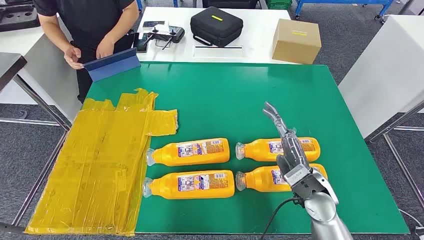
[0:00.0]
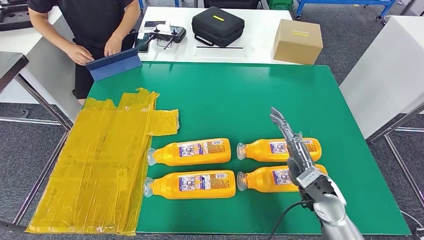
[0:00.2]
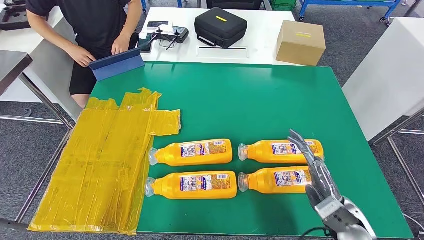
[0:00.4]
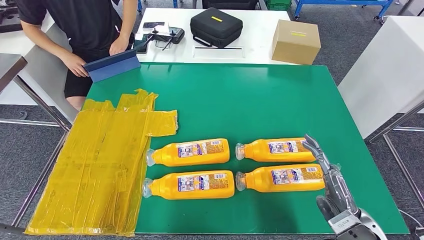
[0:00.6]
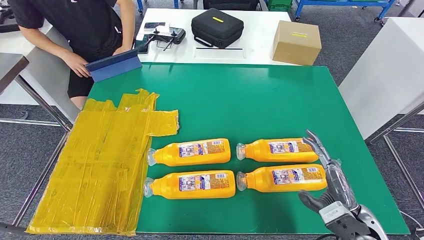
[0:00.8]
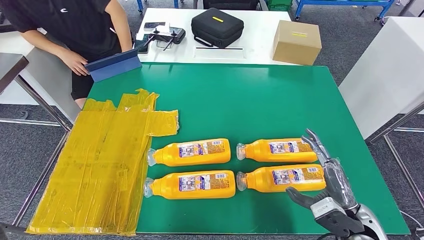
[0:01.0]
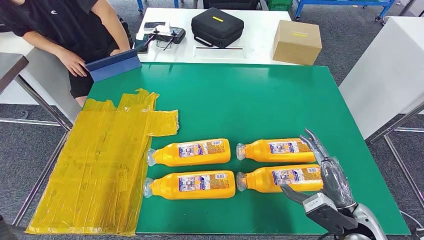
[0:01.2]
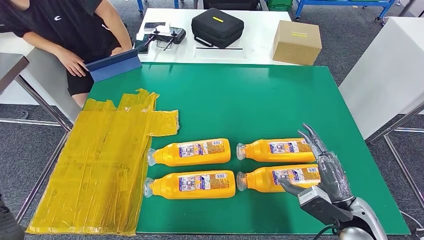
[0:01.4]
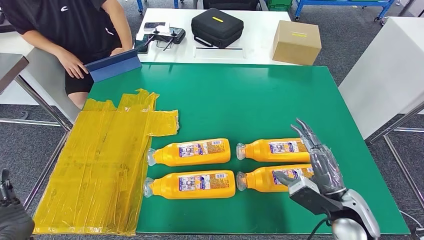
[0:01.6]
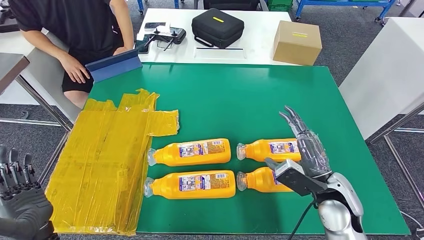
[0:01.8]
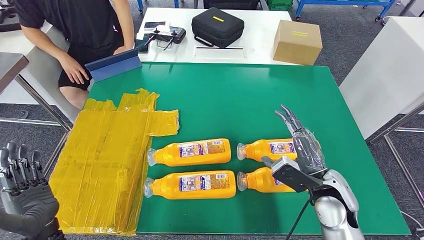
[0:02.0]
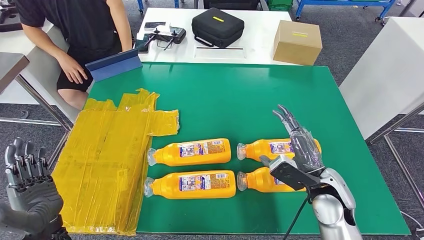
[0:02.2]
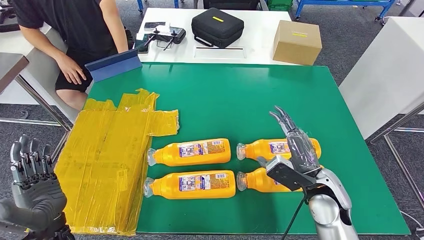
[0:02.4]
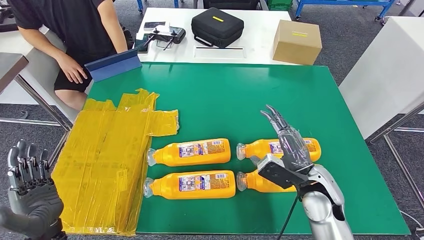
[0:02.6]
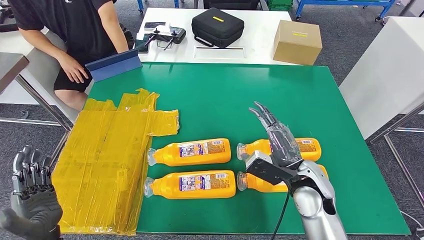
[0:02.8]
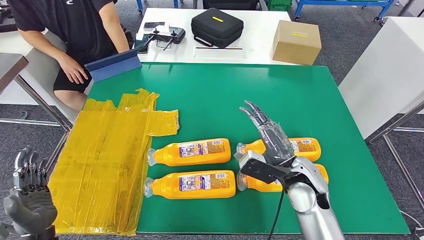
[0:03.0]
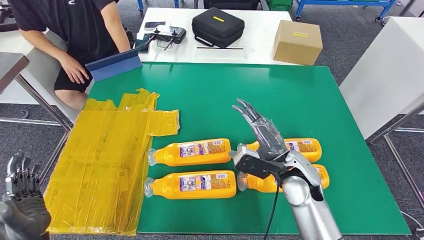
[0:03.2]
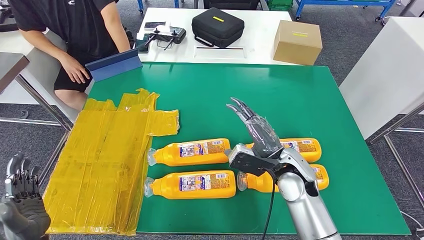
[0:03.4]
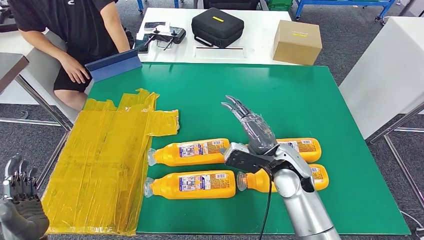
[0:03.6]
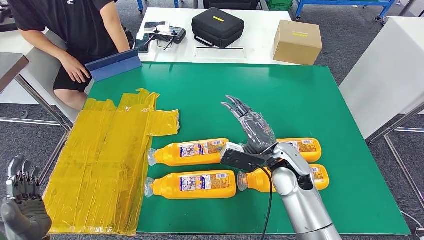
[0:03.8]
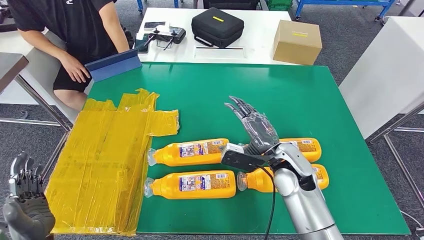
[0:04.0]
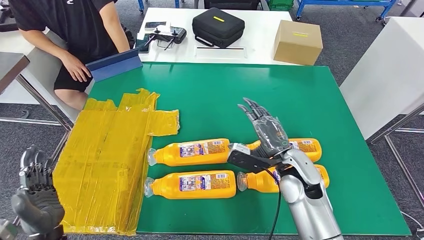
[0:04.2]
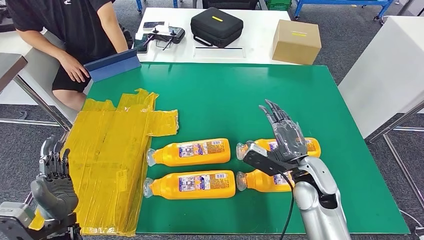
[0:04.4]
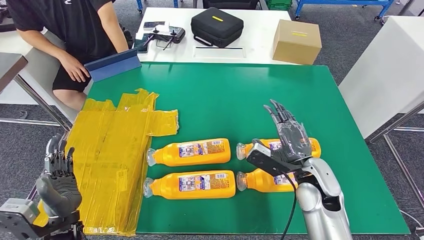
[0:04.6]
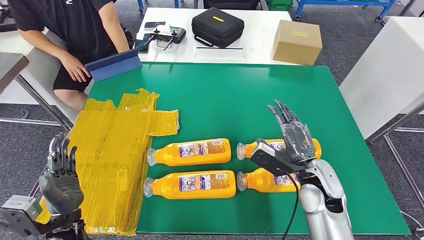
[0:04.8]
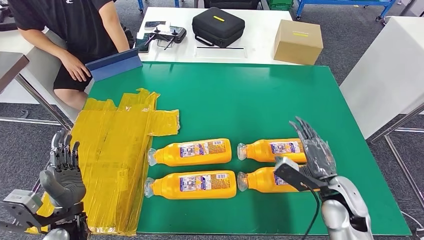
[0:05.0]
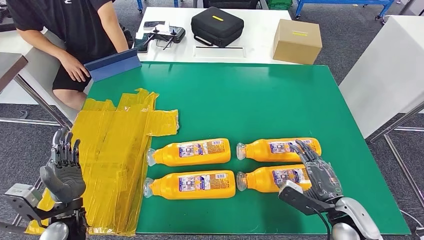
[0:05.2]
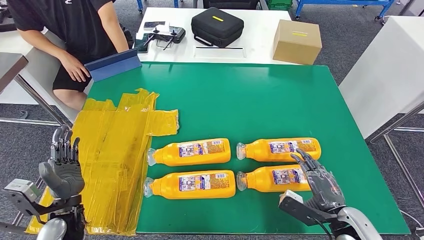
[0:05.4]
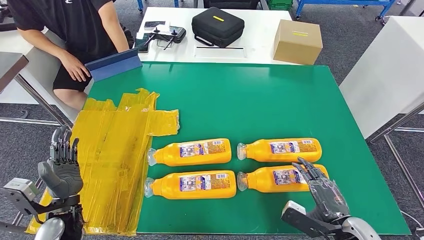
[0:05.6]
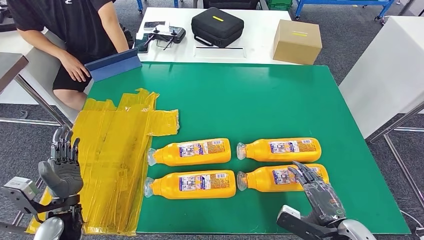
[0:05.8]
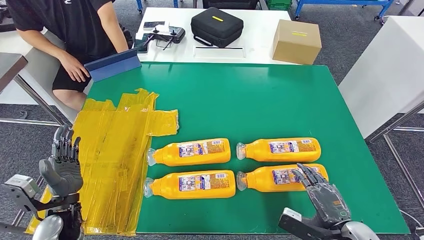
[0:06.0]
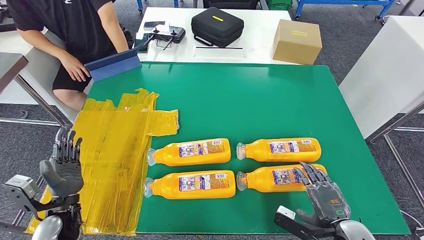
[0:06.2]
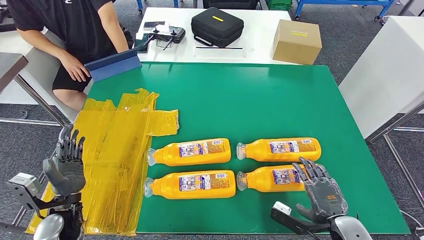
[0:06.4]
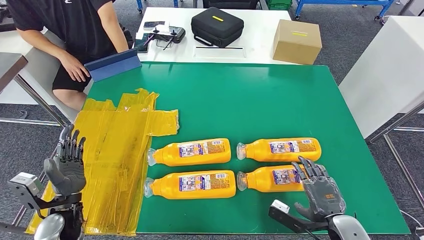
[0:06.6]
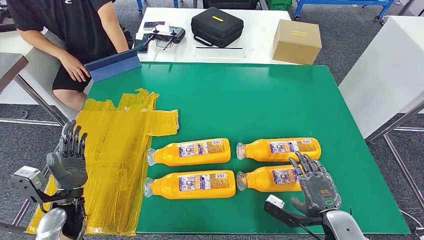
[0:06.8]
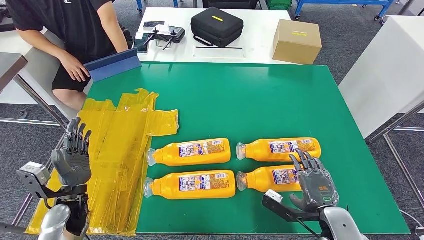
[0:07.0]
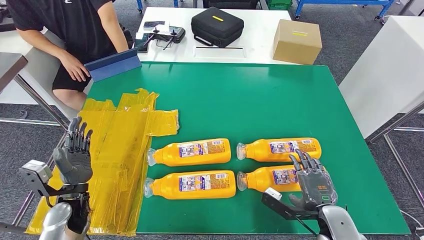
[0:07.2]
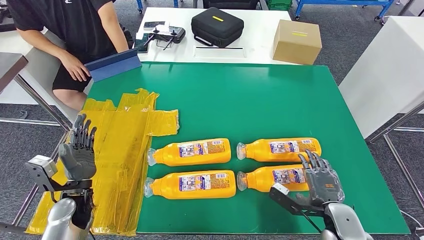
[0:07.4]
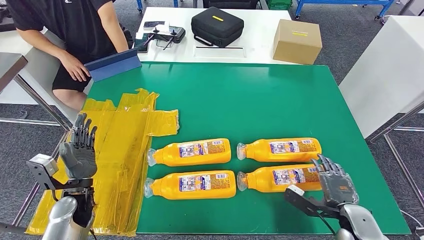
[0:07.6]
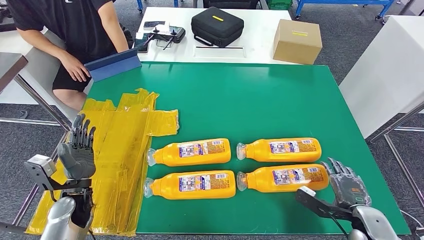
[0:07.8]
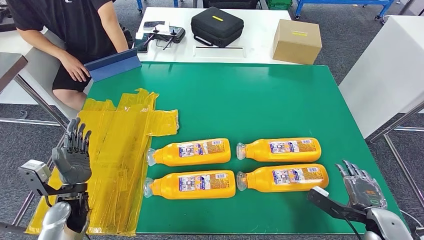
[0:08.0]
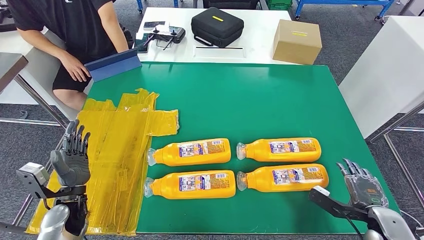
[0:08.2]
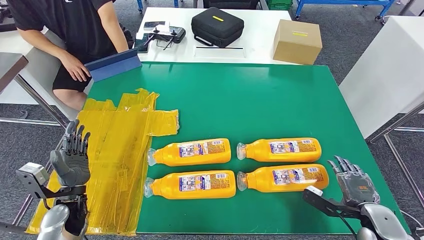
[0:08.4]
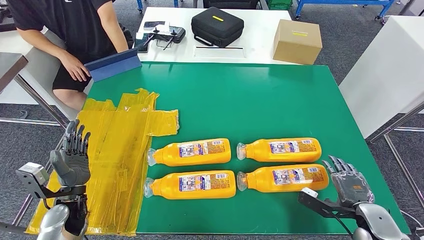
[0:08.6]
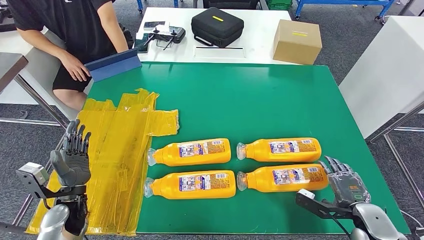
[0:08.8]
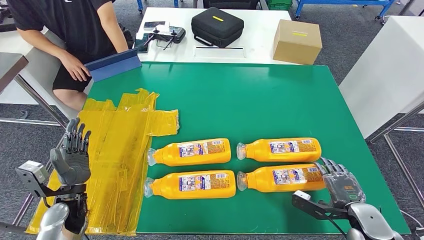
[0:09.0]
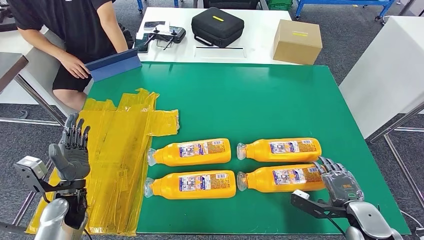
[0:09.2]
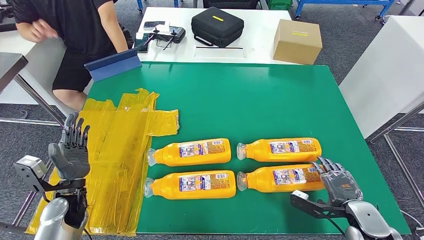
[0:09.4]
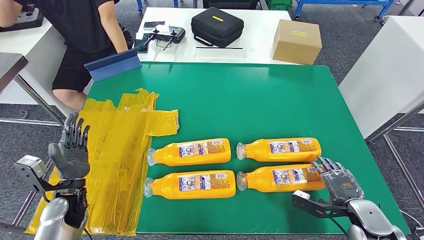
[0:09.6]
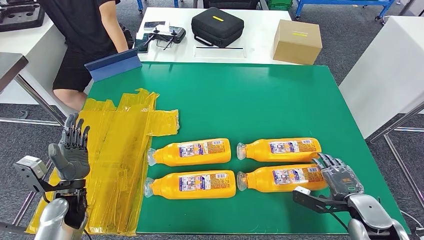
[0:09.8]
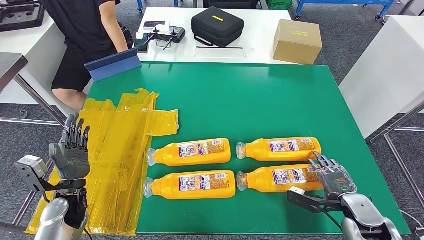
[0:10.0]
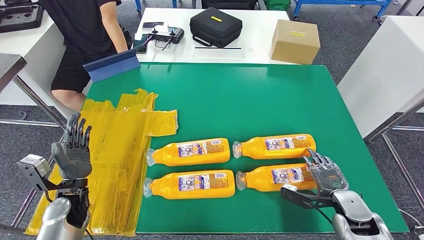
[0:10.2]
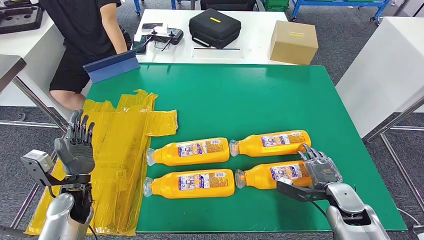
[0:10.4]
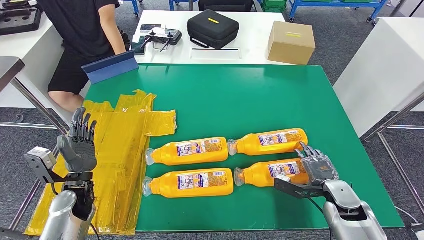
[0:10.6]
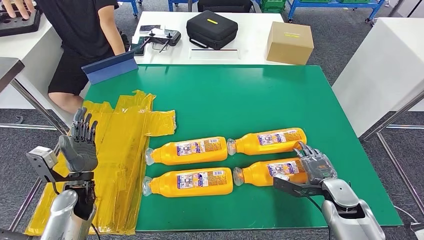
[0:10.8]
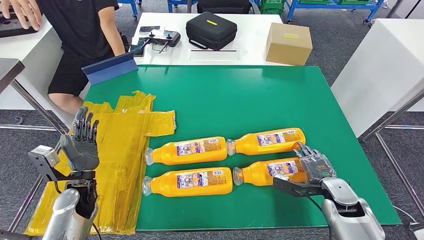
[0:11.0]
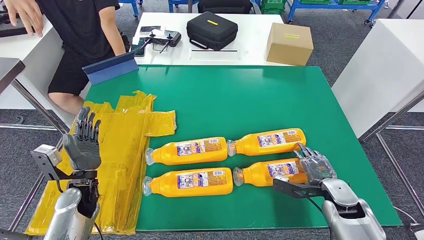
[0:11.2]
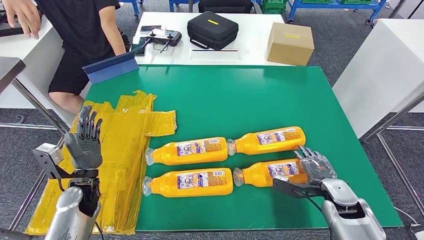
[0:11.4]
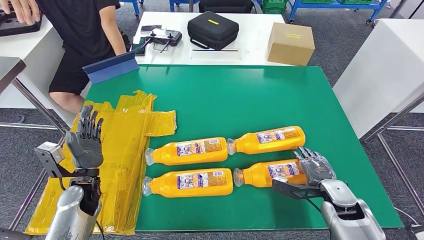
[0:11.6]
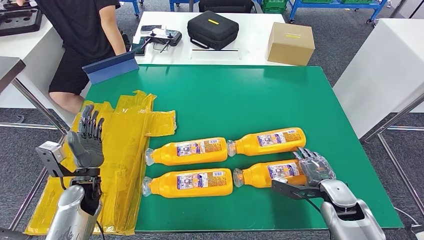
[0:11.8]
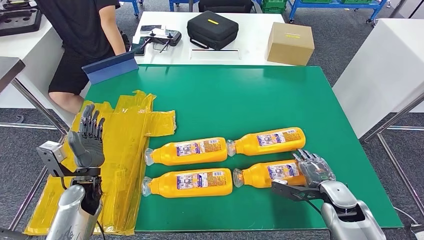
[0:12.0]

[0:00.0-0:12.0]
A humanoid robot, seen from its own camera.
0:01.6 to 0:03.0: The right hand moves to the left and forward, roughly 10 cm.
0:03.0 to 0:04.4: The hands stay close to where they were, moving slightly.
0:04.4 to 0:06.0: The right hand shifts about 15 cm backward and to the right; the left hand shifts roughly 5 cm forward.
0:06.0 to 0:07.6: The right hand moves about 5 cm.

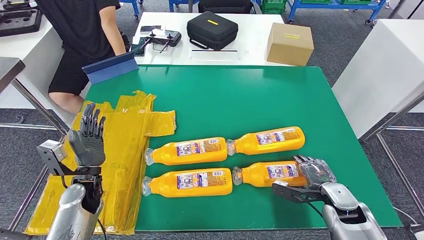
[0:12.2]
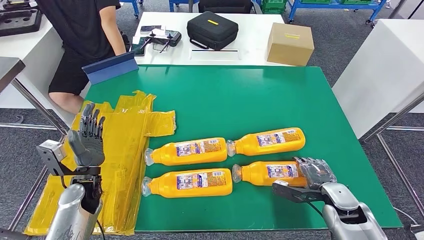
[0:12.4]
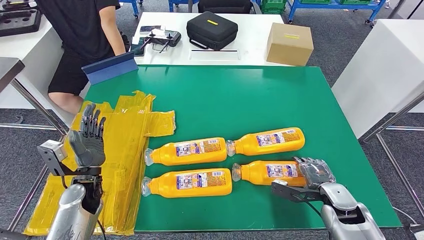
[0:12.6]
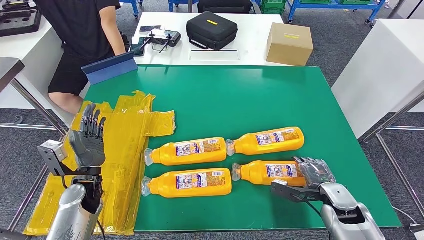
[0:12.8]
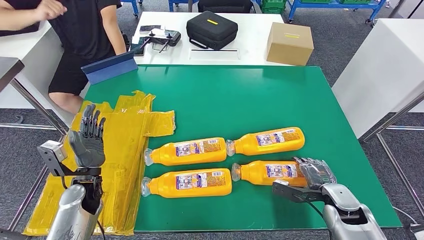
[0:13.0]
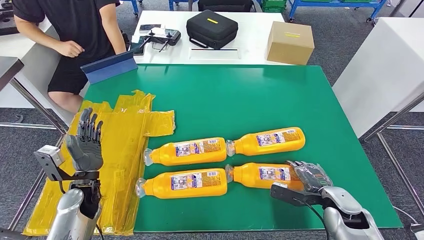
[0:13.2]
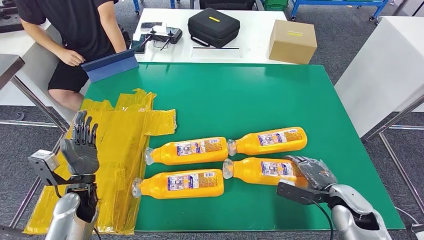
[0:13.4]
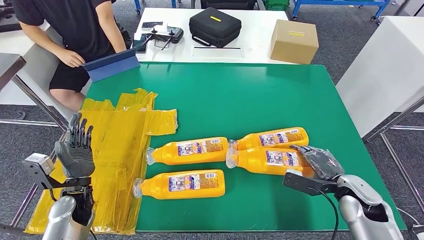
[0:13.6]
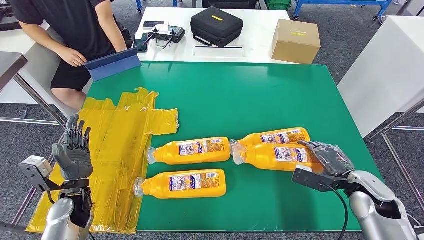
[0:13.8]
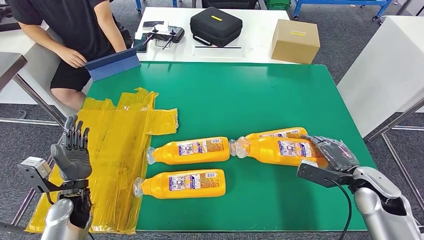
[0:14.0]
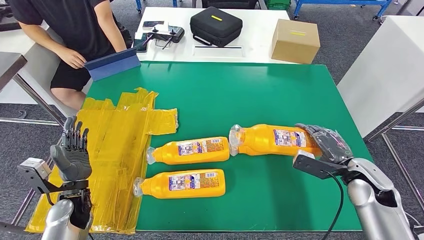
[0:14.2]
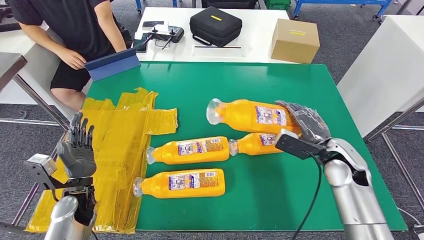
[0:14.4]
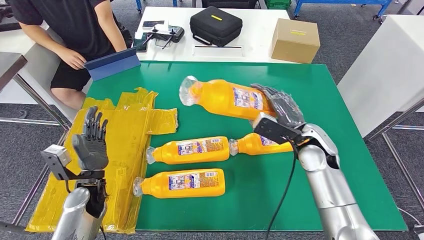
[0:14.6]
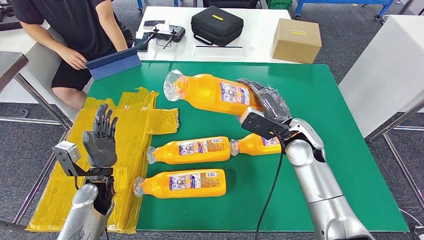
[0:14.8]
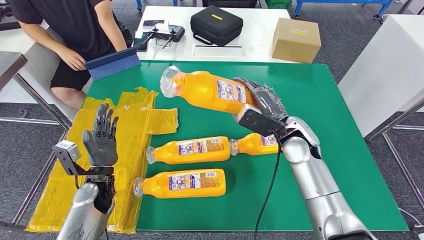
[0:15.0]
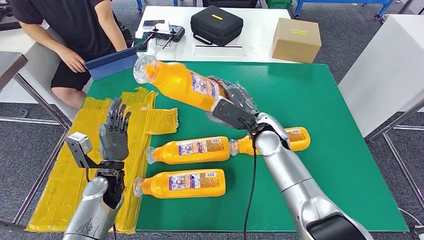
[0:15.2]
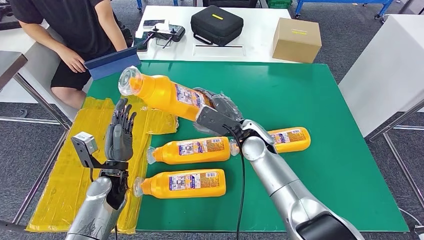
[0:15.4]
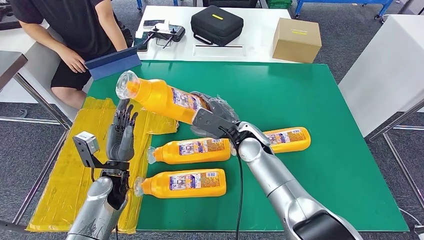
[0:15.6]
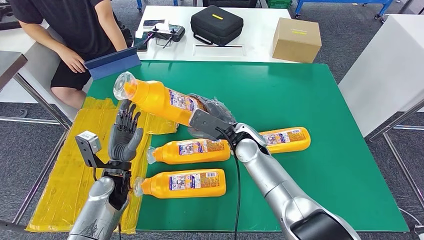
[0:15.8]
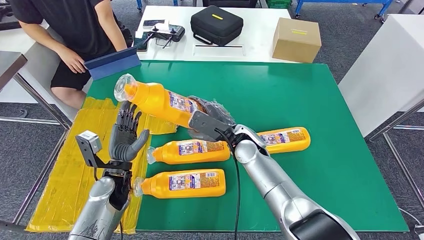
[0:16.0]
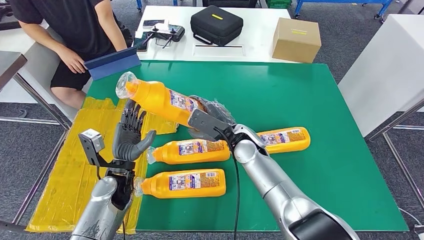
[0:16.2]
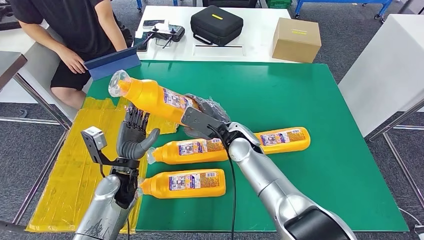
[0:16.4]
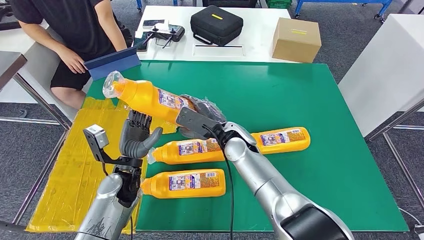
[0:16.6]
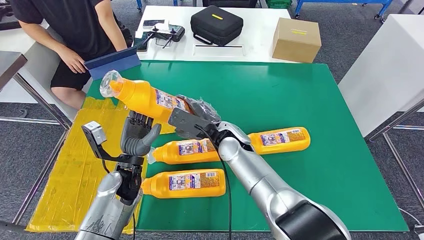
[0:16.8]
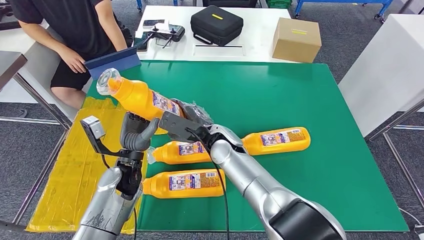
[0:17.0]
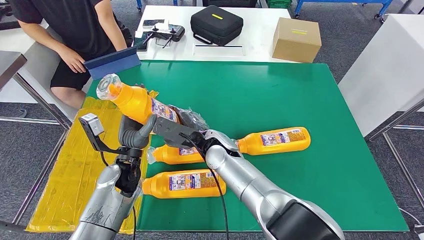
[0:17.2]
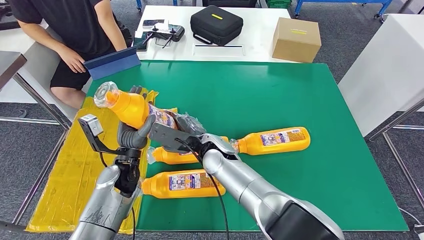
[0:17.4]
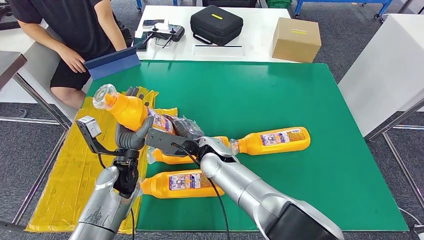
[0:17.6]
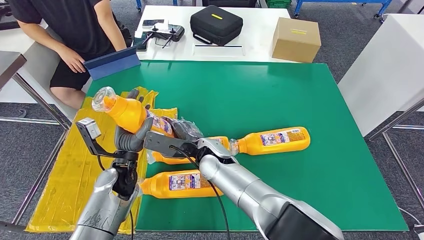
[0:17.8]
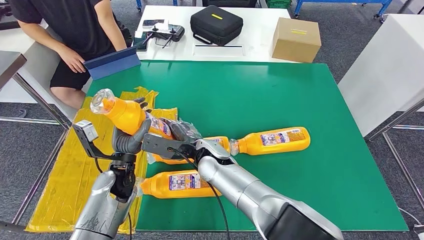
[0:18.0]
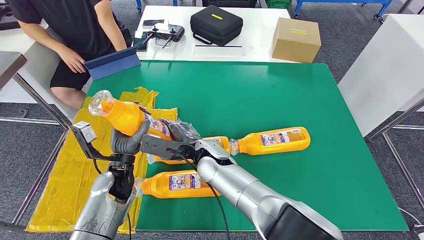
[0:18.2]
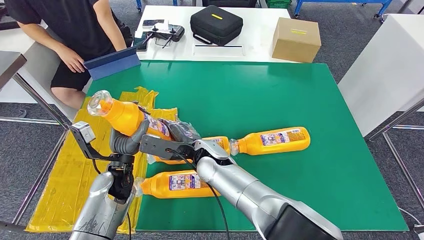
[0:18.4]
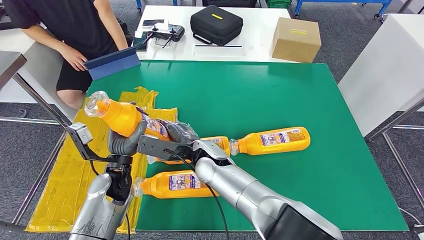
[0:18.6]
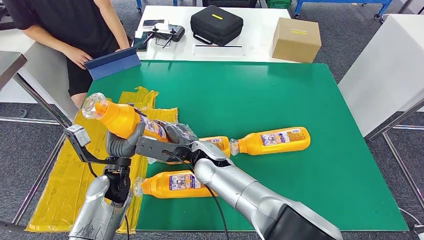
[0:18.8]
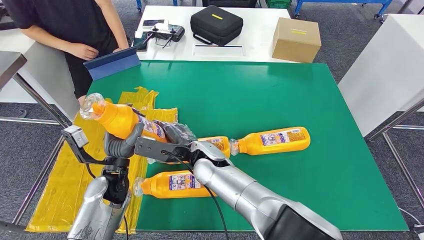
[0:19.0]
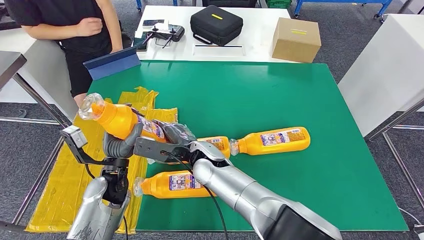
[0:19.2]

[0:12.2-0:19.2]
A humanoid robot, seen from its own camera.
Step, 0:12.2 to 0:15.0: Take the bottle from the table.
0:16.4 to 0:17.8: The right hand travels to the left by about 10 cm.
0:17.8 to 0:19.2: There are only small adjustments of the hands.
